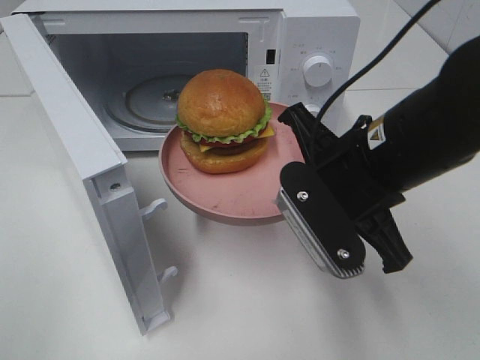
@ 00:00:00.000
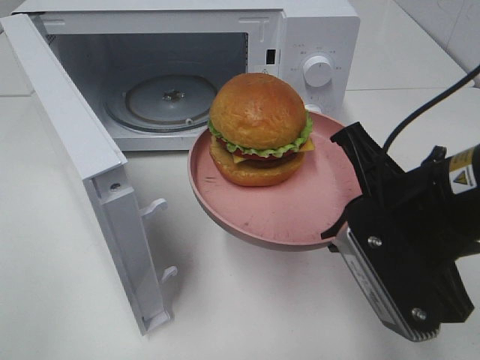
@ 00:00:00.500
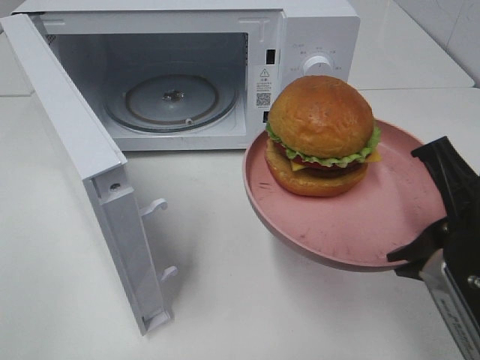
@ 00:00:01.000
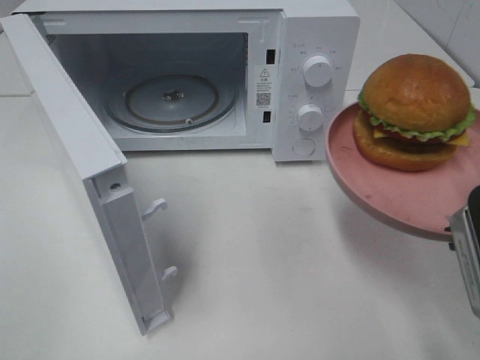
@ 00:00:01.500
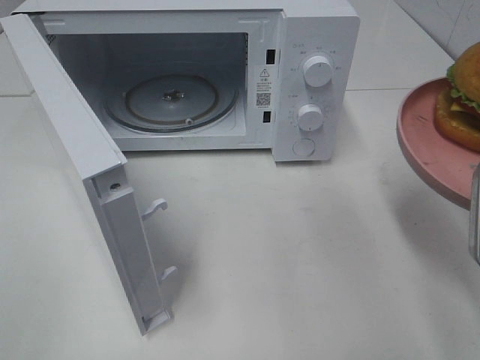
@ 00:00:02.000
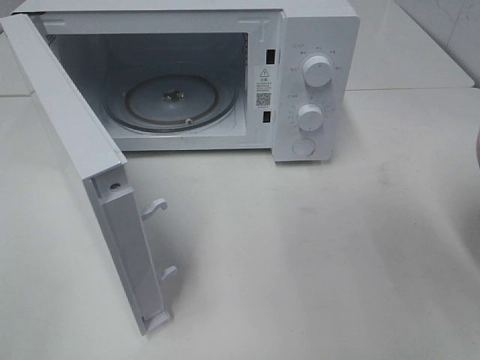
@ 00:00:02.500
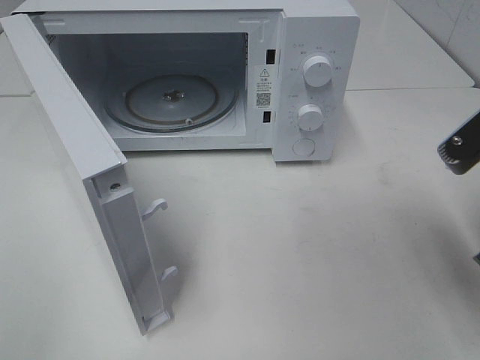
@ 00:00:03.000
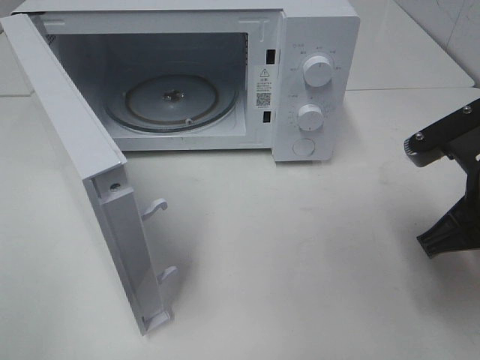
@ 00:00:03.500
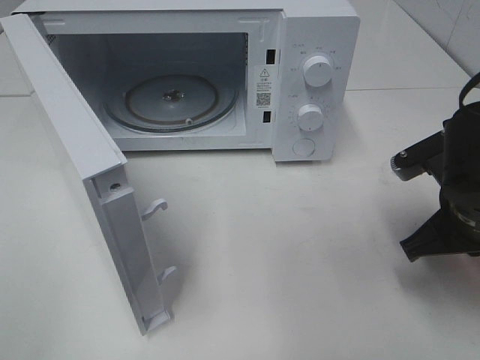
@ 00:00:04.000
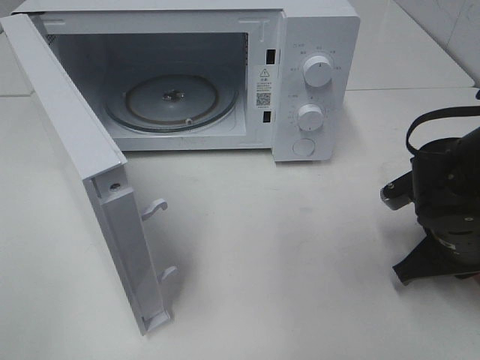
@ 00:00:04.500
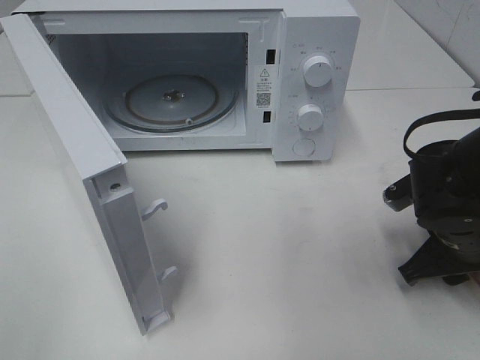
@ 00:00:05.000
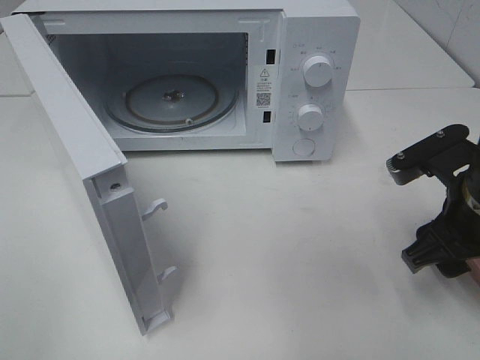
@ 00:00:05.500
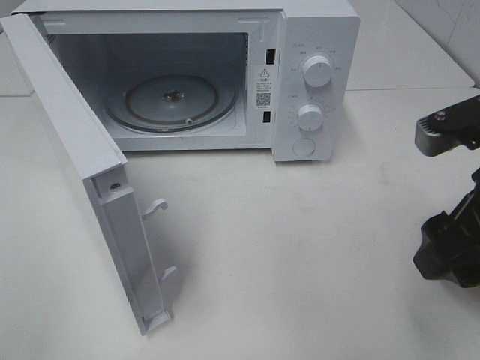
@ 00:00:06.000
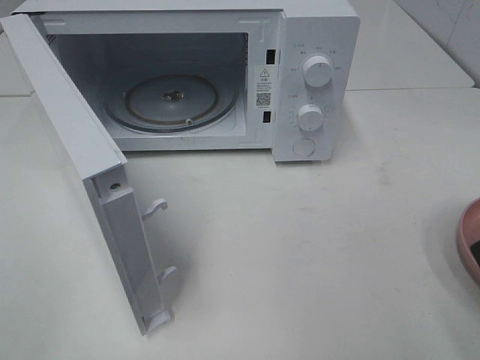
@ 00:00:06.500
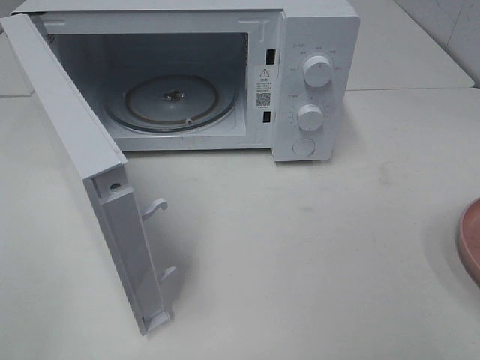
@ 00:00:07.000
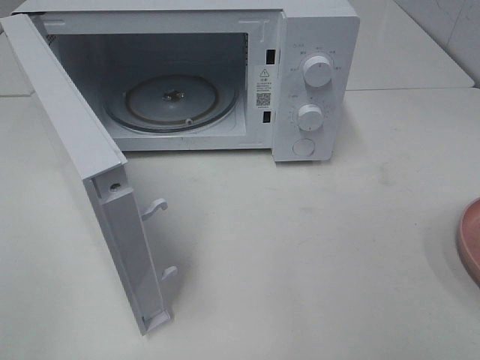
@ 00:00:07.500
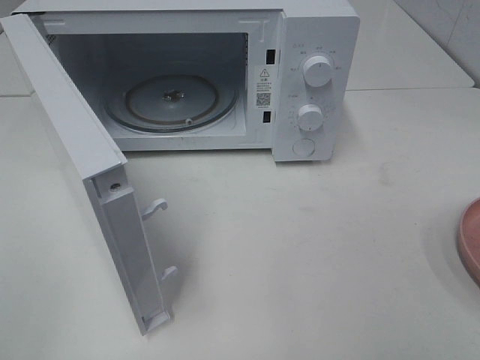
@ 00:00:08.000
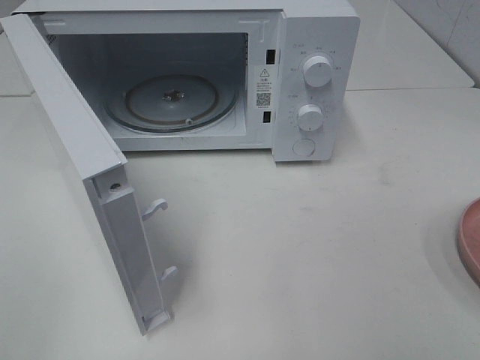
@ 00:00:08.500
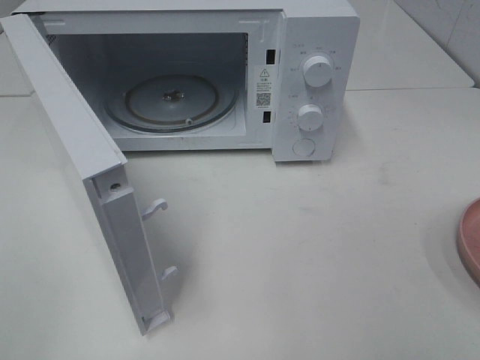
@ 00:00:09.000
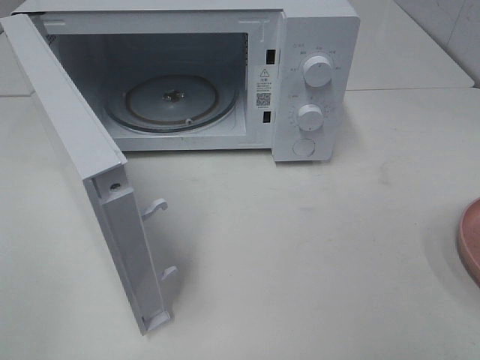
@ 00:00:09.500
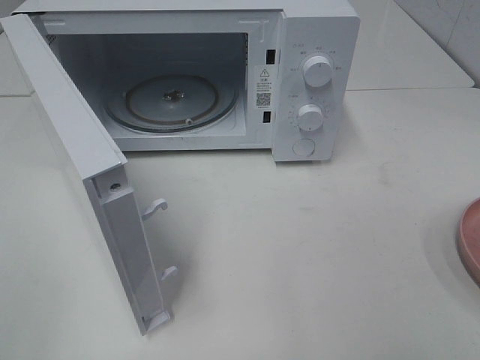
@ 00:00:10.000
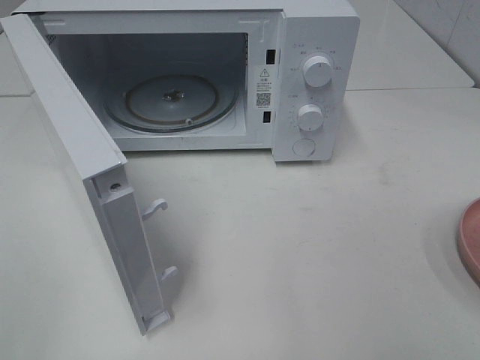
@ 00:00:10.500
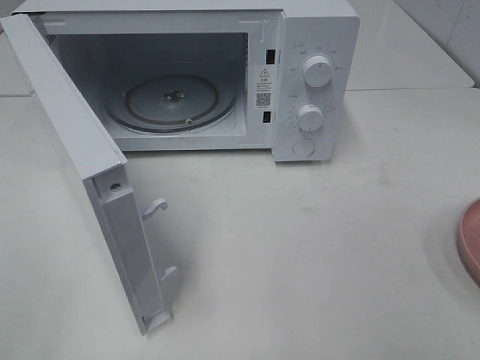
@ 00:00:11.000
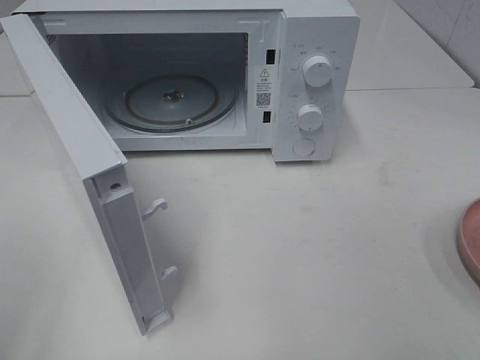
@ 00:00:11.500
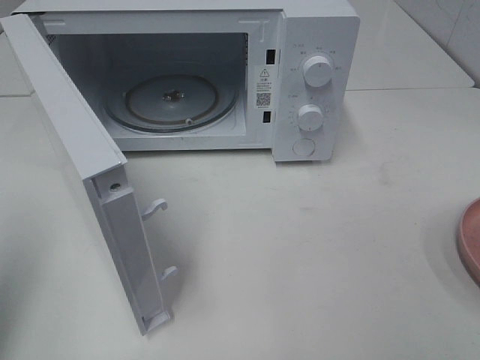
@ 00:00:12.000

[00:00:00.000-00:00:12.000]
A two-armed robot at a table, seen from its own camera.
Task of the whole recording: Heat the burger.
Step, 00:00:00.000 to 00:00:05.000: Right hand: place the plate on the table.
00:00:00.000 to 00:00:02.000: The right gripper moves to the right and backward, approximately 15 cm.
00:00:02.000 to 00:00:04.000: The right gripper shifts roughly 15 cm downward and forward.
00:00:04.000 to 00:00:06.000: The right gripper shifts some 10 cm upward and backward, and opens its fingers.
00:00:06.000 to 00:00:08.000: The right gripper moves backward and to the right, roughly 20 cm.
00:00:10.000 to 00:00:12.000: The left gripper is displaced forward by approximately 15 cm, and closes up.

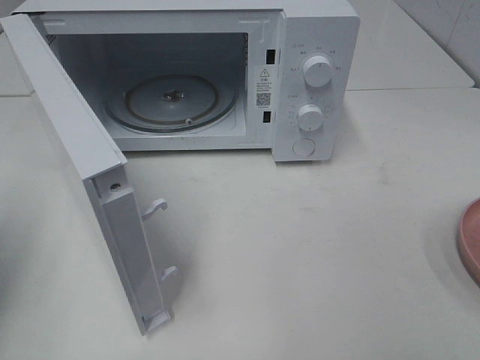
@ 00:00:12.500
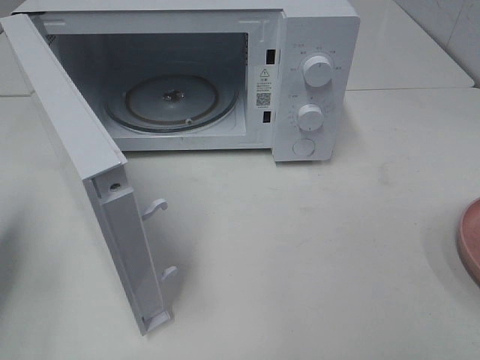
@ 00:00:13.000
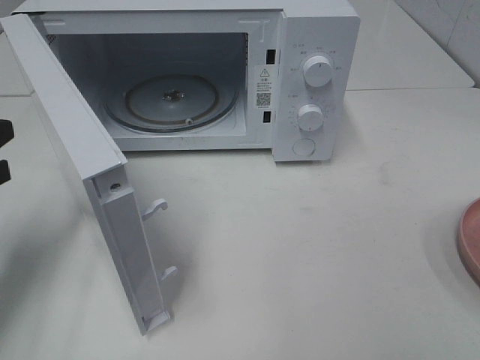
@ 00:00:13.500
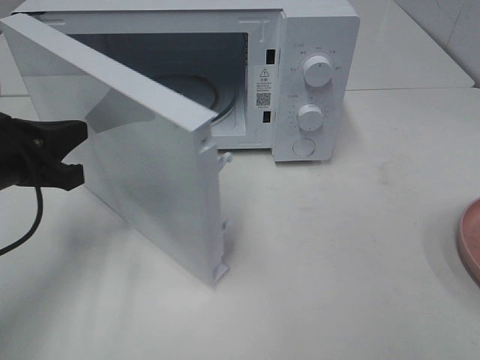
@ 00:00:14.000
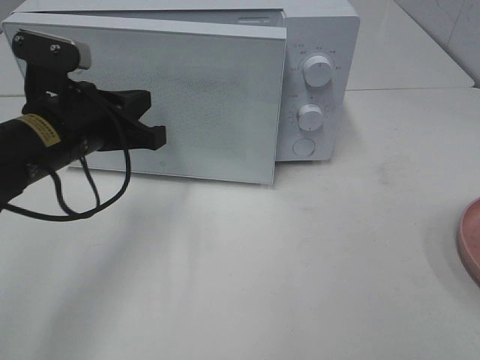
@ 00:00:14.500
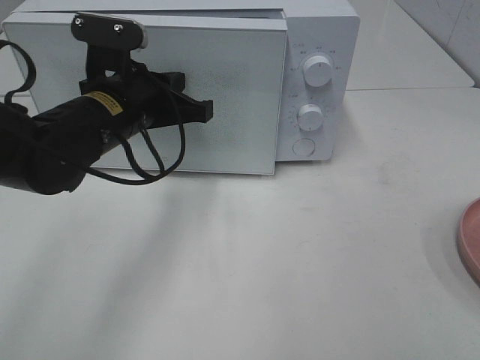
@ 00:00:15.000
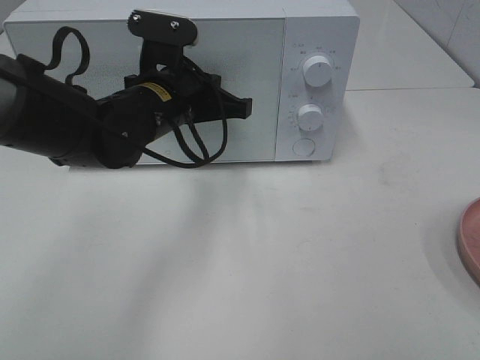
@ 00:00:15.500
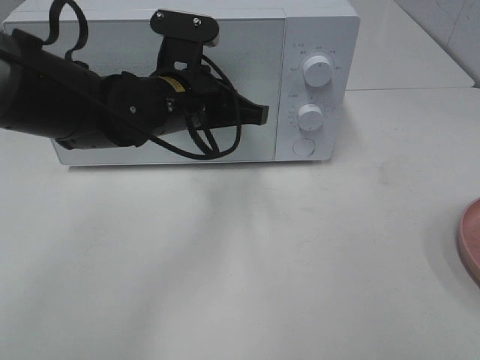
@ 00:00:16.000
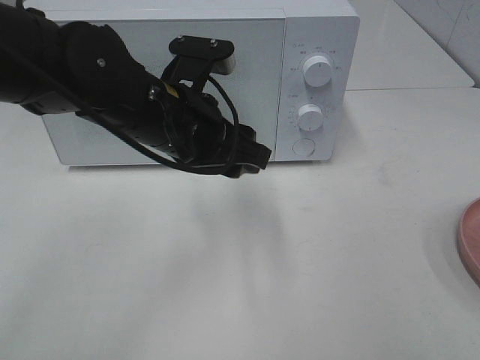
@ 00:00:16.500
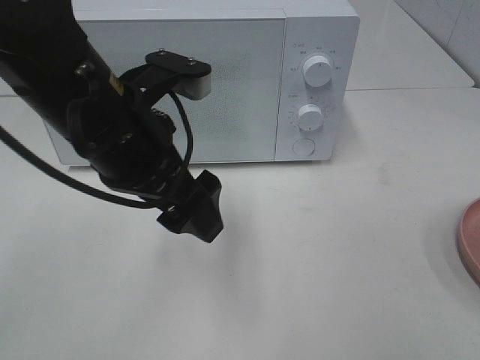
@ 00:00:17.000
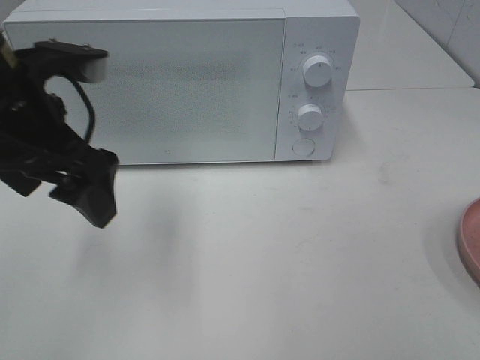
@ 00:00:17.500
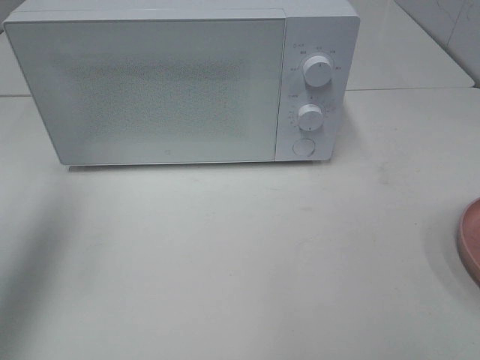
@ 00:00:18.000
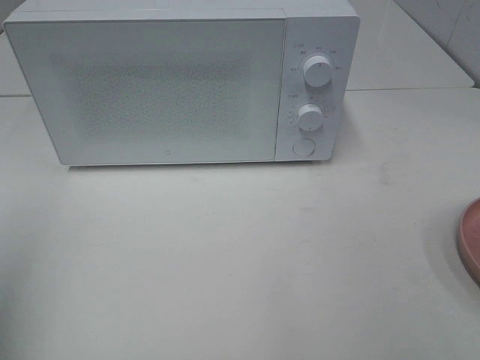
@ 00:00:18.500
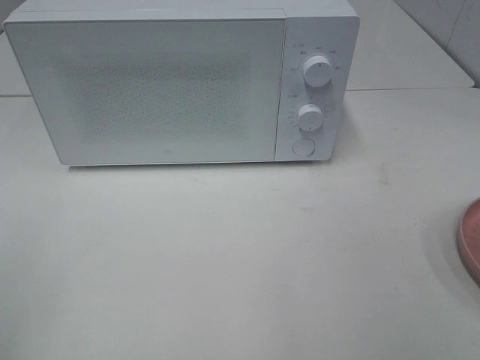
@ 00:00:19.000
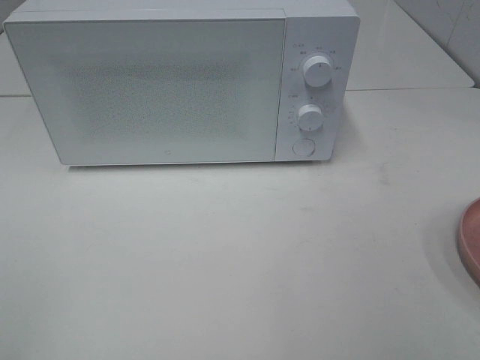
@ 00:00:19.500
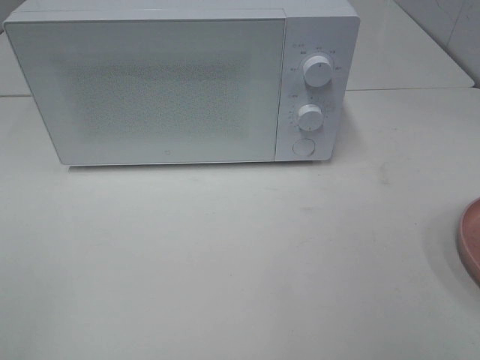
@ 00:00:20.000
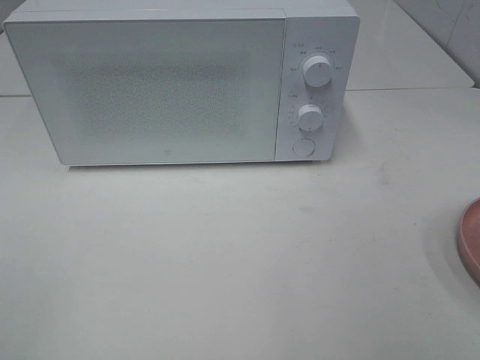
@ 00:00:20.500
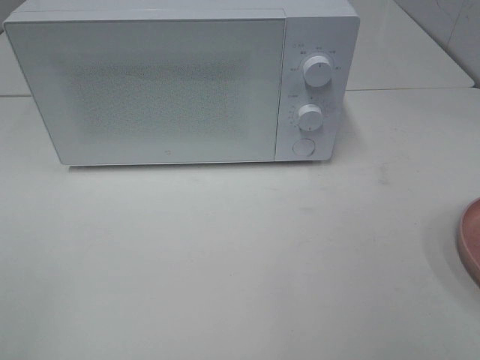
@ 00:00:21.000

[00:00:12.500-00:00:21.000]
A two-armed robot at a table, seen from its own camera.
Task of the whole recording: Heat the burger.
Step, 00:00:12.500 to 00:00:16.000: Left hand: close the microwave door.
00:00:12.500 to 00:00:14.500: The left gripper heads to the right, forward and downward, covering some 20 cm.
00:00:14.500 to 00:00:16.500: The left gripper heads to the right, covering roughly 10 cm, and opens.
00:00:16.500 to 00:00:19.000: The left gripper is displaced to the left and backward by about 35 cm.
